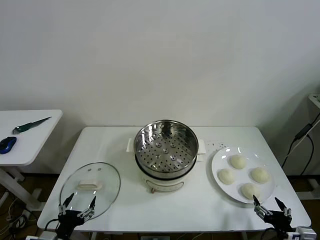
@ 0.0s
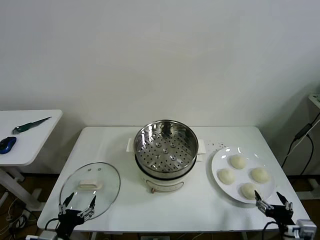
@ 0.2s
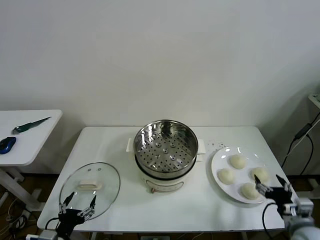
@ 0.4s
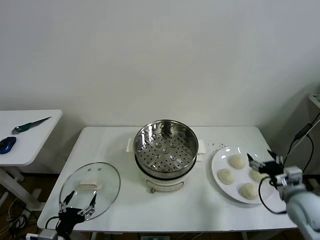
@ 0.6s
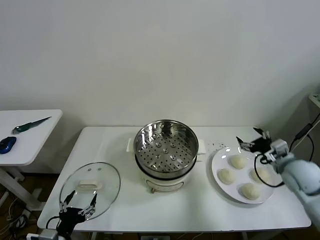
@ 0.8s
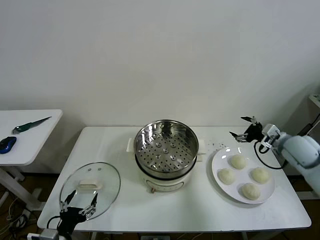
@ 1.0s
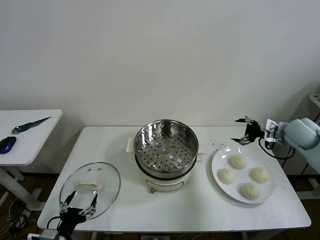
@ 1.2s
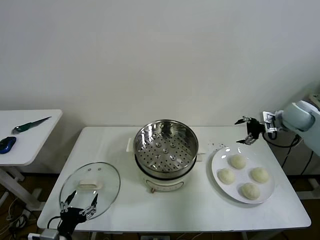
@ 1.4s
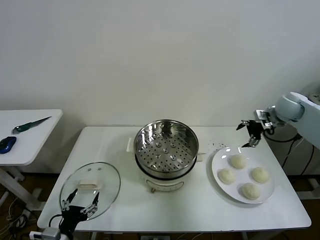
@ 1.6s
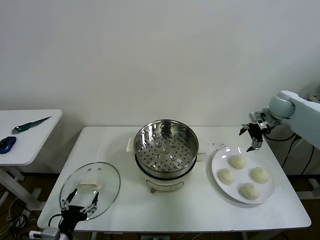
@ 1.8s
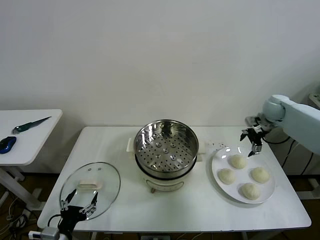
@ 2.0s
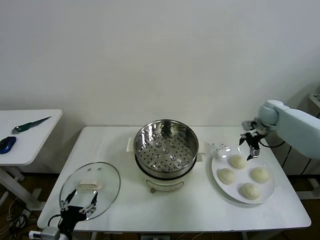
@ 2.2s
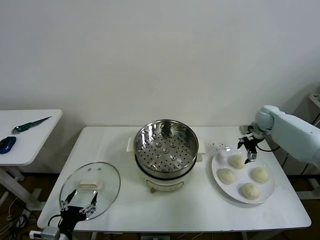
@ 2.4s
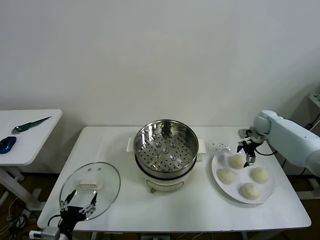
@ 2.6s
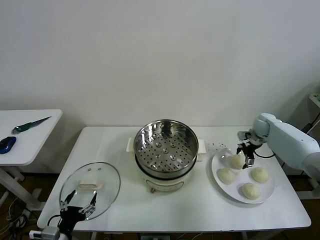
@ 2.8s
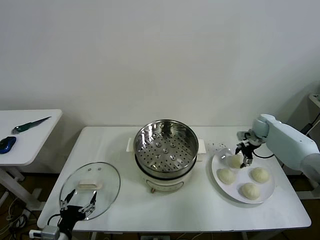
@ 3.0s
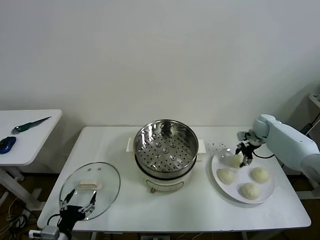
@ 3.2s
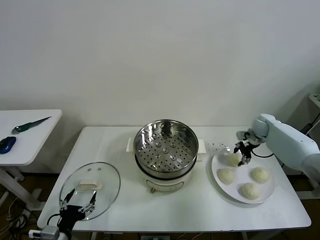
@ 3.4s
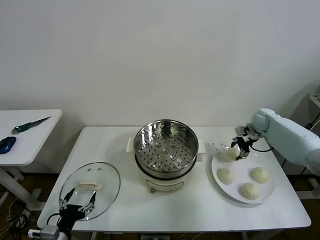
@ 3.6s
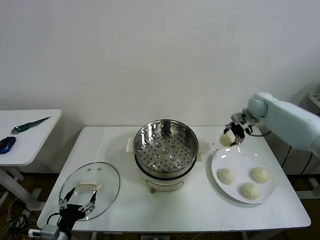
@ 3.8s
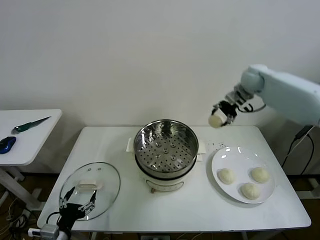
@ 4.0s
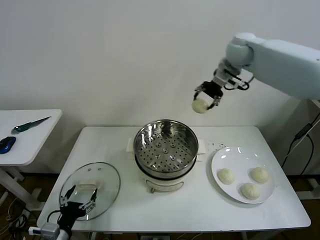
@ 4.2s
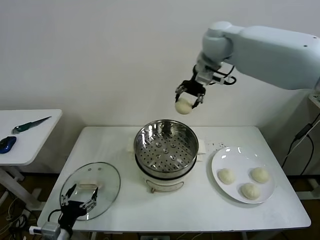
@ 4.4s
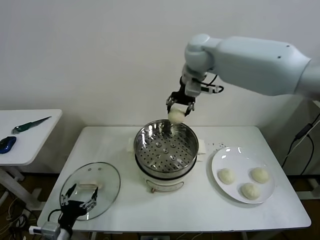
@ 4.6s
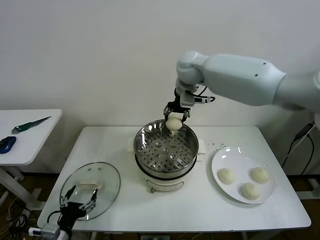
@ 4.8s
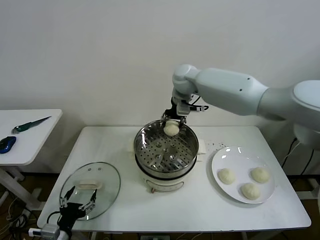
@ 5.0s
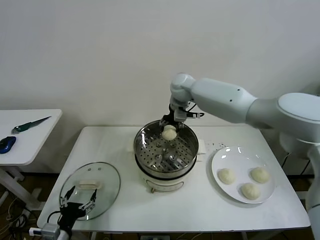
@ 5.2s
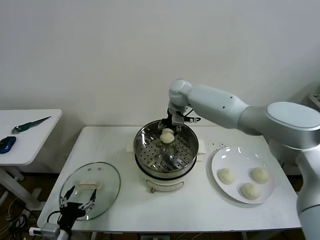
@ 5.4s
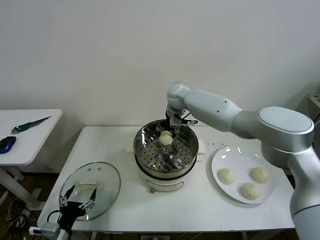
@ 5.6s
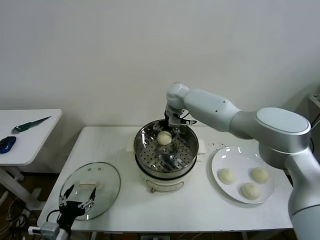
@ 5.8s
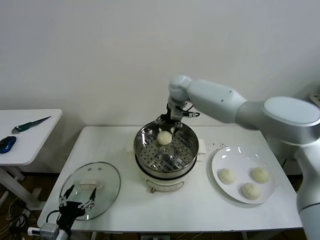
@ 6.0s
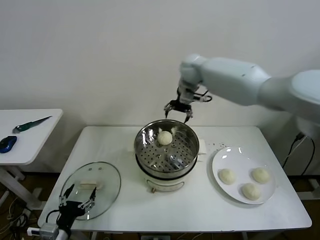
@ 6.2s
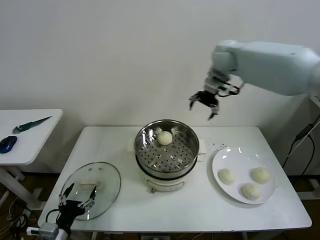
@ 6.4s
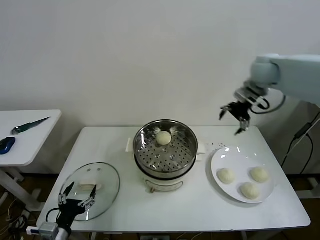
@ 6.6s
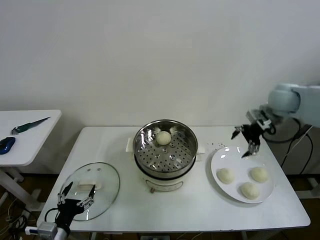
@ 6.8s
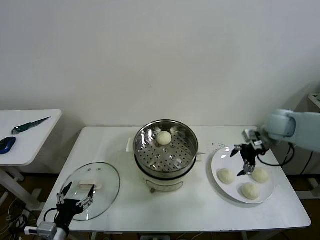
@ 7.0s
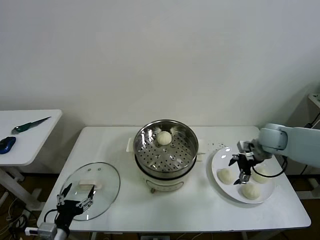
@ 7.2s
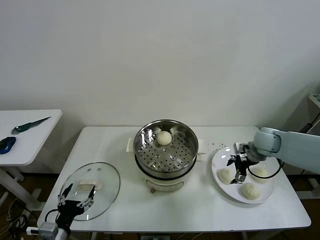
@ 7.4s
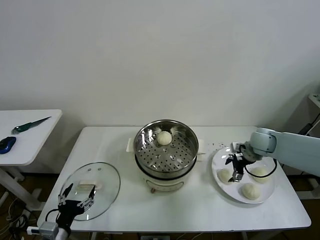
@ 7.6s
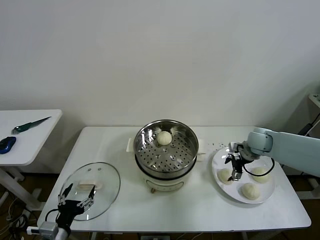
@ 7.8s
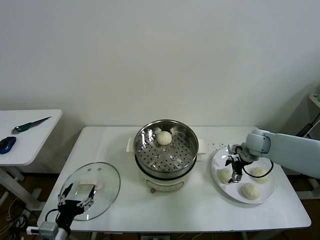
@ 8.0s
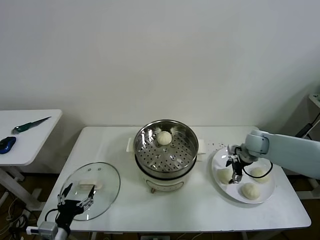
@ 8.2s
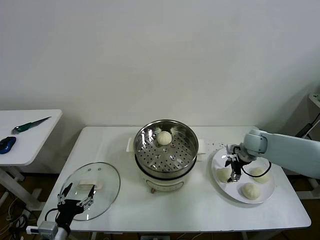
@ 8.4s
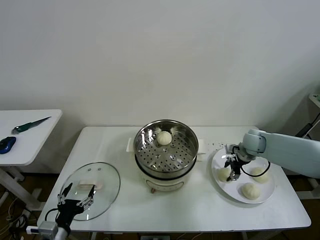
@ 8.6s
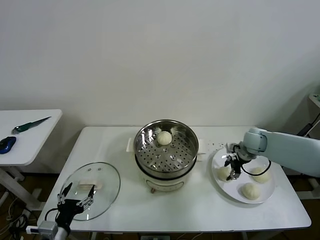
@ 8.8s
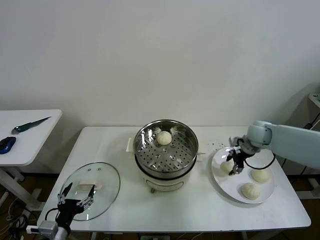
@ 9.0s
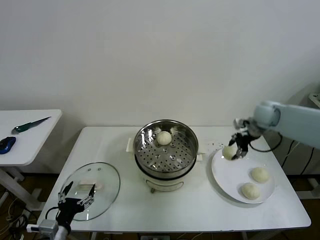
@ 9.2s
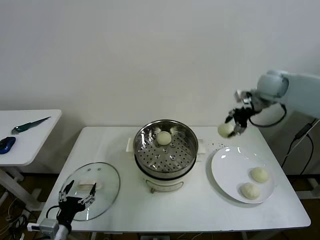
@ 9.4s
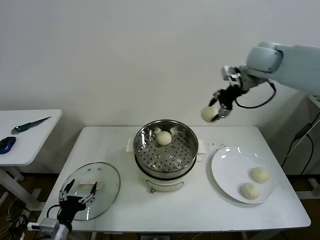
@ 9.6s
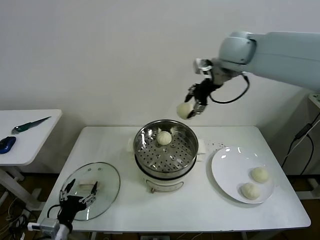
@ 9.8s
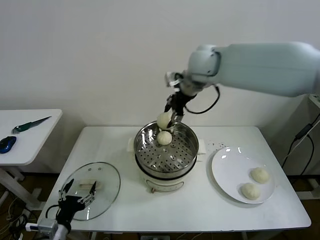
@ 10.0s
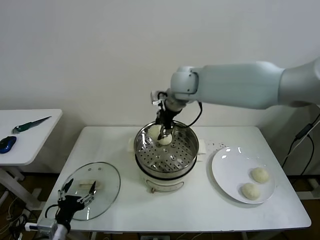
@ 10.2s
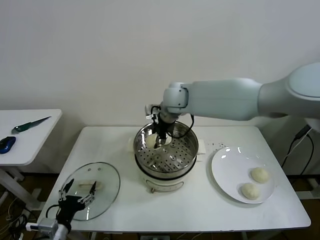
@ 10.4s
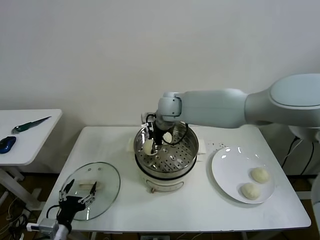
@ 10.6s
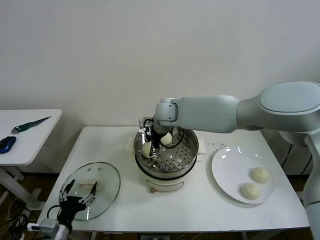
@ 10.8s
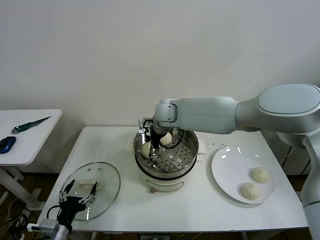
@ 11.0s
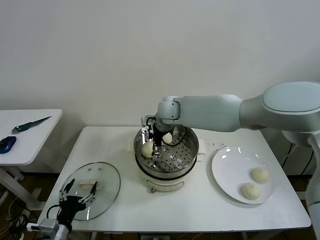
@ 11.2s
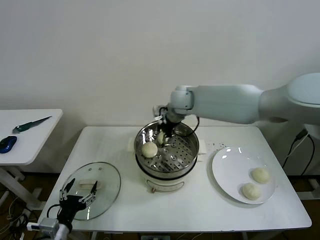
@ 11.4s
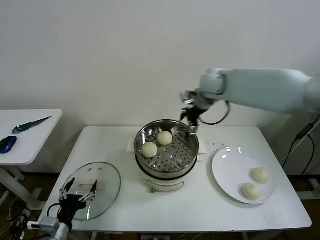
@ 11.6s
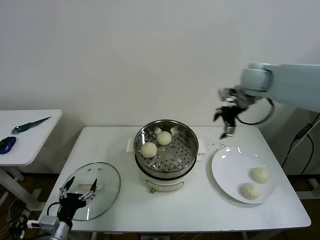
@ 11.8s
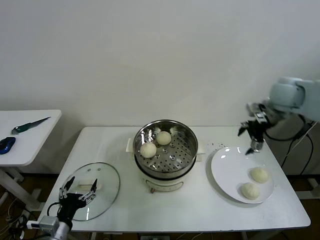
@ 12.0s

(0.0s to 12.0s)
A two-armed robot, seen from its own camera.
Task of the whole recording: take steamed baozi put them in steamer then cover it.
Step, 0.0s - 3.2s: Grasp the baozi in the plate with right gripper.
Step, 3.4s - 5.8s: Place the baozi on the steamer with right gripper.
Step, 6.0s - 8.6s: Grasp the baozi in the plate with right gripper.
Step, 8.8s - 11.0s: Place the baozi on the steamer with right gripper.
1.6s - 3.0s: The right gripper moves downward, roughly 15 cm, and closes up.
3.0s - 4.4s: The right gripper goes approximately 50 cm upward and to the left.
4.4s - 6.0s: The right gripper travels downward and forward by approximately 15 cm, and opens its fingers.
6.0s - 7.6s: The right gripper travels to the right, downward and backward by approximately 35 cm.
7.6s - 9.0s: The right gripper shifts by about 5 cm, and closes.
9.0s - 10.4s: The right gripper shifts some 35 cm to the left.
10.4s - 12.0s: The right gripper travels to the right by about 35 cm, and opens its fingers.

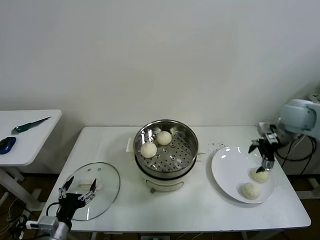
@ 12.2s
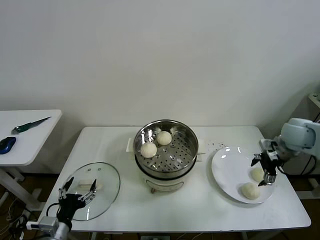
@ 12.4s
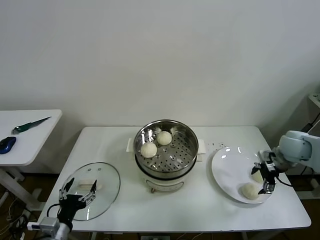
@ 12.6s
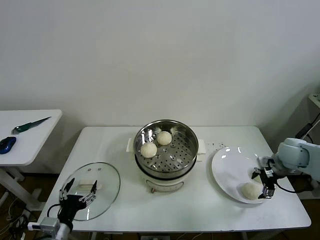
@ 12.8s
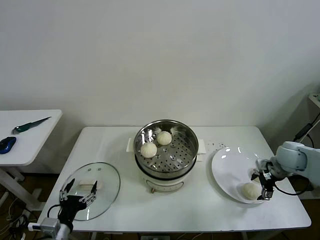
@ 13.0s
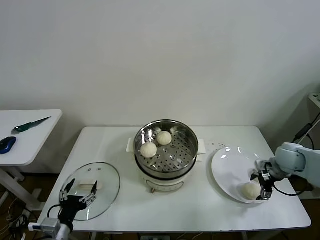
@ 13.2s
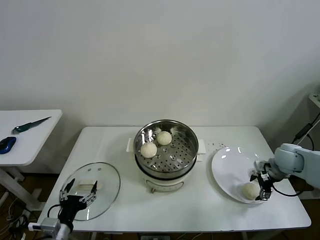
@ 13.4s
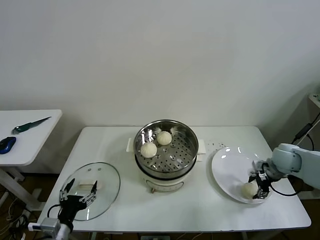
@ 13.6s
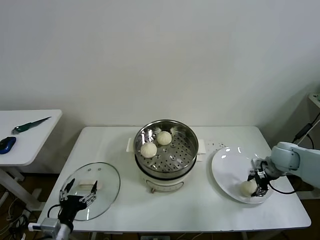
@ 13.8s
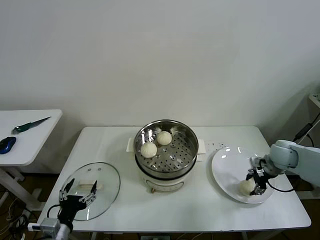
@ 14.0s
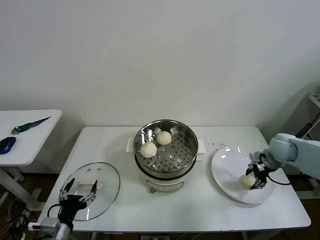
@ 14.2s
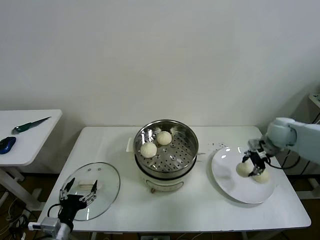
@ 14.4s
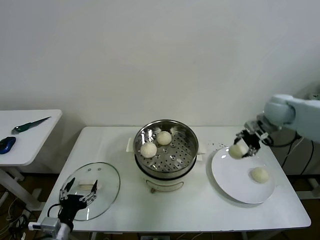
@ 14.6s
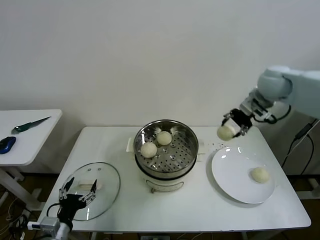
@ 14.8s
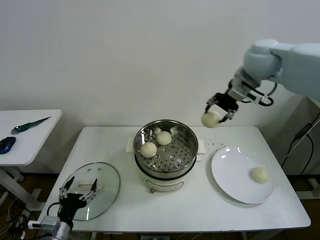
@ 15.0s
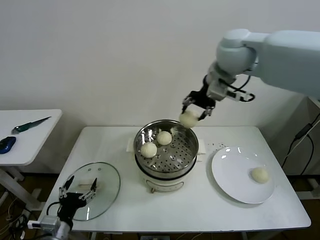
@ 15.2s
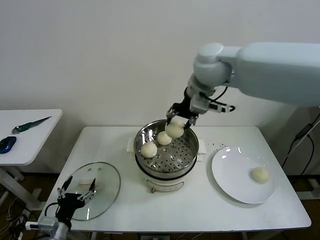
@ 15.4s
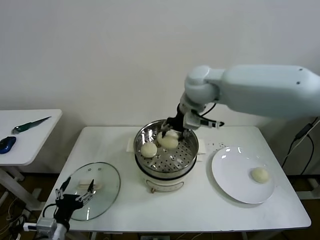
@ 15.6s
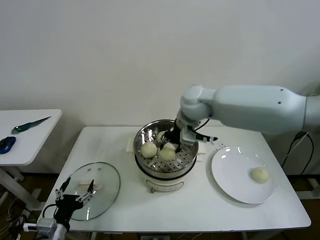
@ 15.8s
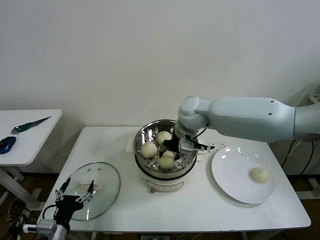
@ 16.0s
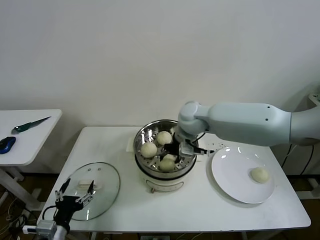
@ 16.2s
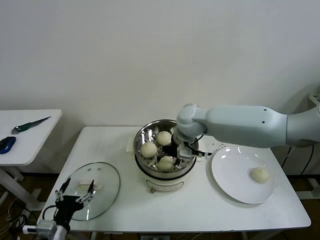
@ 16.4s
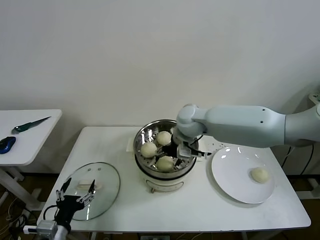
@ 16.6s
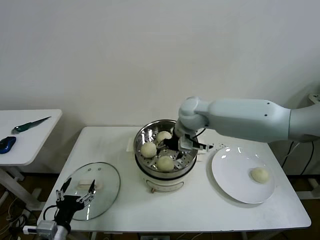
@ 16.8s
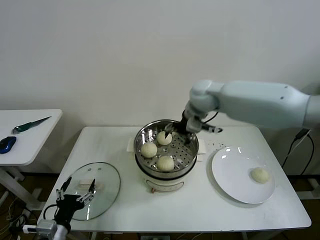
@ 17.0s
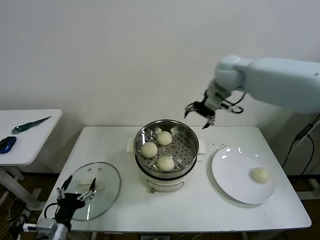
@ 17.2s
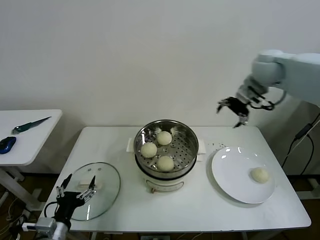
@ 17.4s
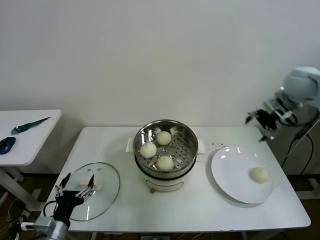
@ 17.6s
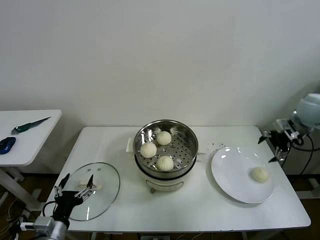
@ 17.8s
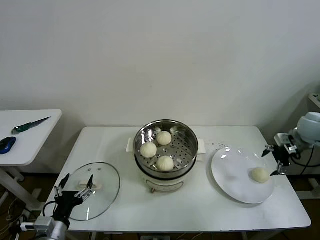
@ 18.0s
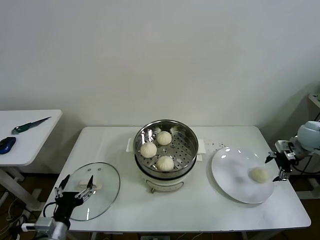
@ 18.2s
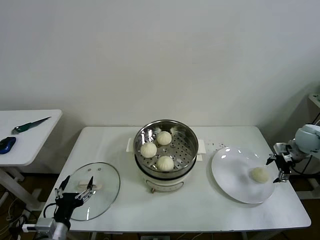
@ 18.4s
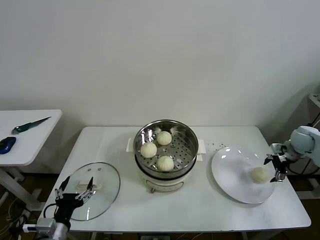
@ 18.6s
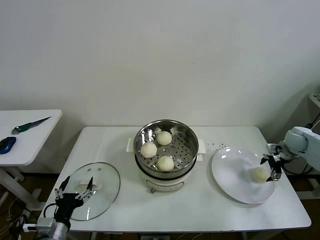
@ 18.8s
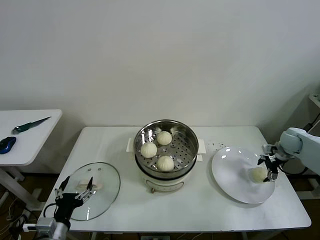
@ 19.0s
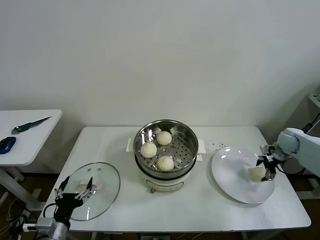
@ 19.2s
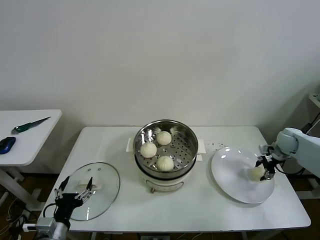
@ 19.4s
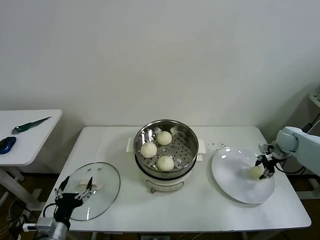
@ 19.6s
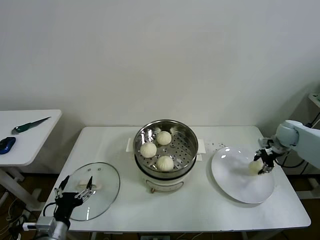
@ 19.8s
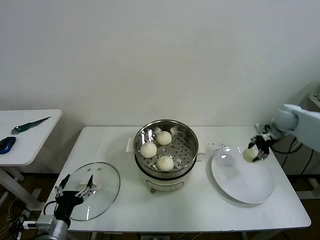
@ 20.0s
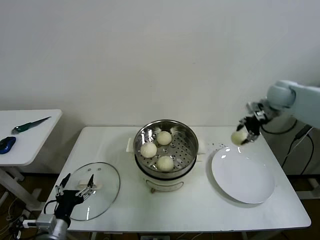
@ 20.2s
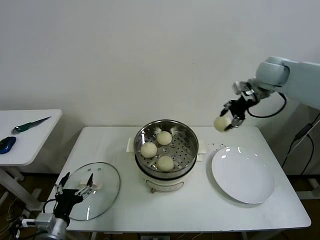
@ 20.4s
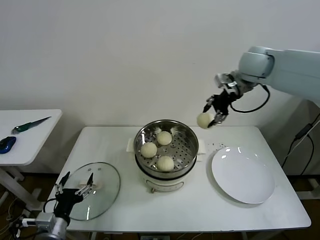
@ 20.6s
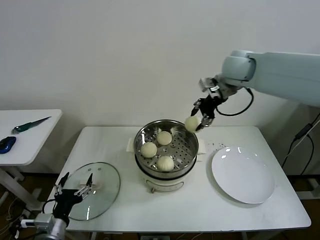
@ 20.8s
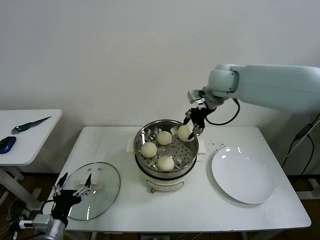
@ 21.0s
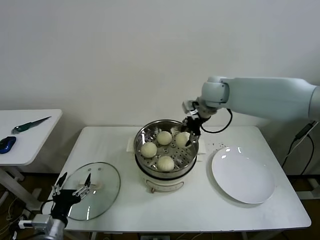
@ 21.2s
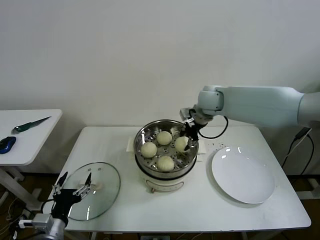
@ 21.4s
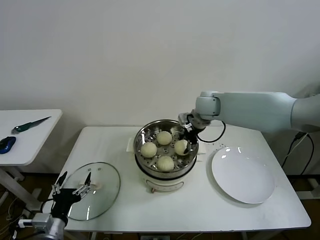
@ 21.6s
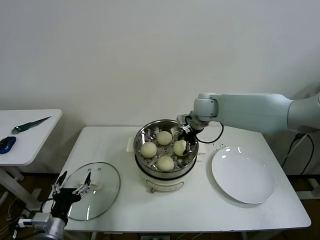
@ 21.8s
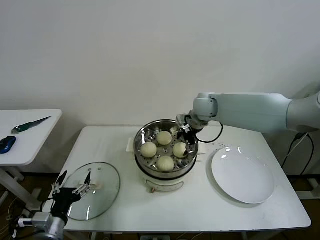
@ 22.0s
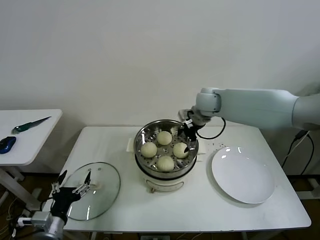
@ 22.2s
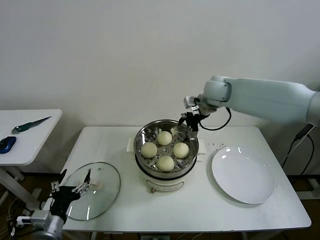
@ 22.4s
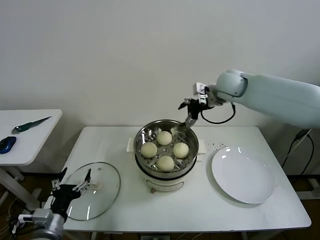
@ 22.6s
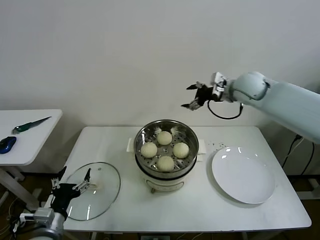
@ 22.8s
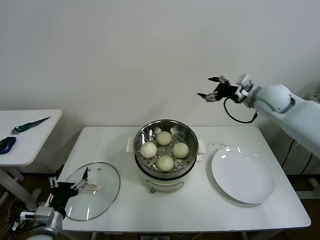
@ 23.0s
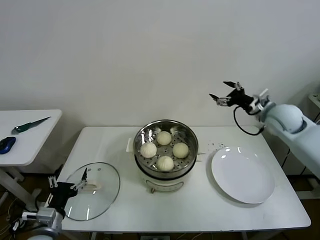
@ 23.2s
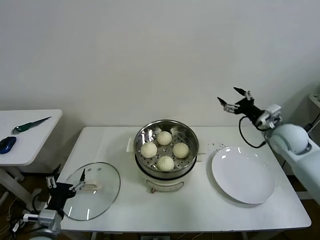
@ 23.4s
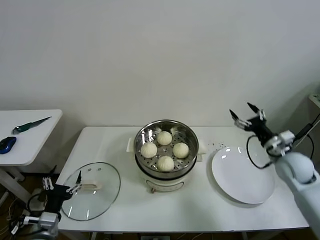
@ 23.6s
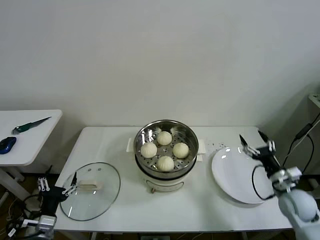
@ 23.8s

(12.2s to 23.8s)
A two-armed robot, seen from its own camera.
Task of the whole recording: take steamed baozi put them in steamer then cover it.
Step, 12.2s - 13.8s: Grasp the baozi in the plate with right gripper.
Step, 14.0s - 16.6s: Place the baozi on the steamer with right gripper.
Step, 16.8s - 19.4s: Grasp the baozi in the plate with right gripper.
Step, 19.8s - 21.8s: Place the baozi on the steamer with right gripper.
12.2s - 13.6s: The right gripper moves downward, approximately 15 cm, and closes.
13.6s - 15.0s: The right gripper moves upward and to the left, about 40 cm.
15.0s - 16.6s: The right gripper shifts some 25 cm downward and to the left, and opens its fingers.
16.6s - 18.0s: The right gripper heads to the right, covering roughly 40 cm.
18.0s - 19.4s: The right gripper is displaced downward by roughly 10 cm, and closes up.
19.4s - 21.0s: The right gripper heads to the left and upward, covering some 40 cm.
21.0s - 22.4s: The right gripper travels downward and back again, approximately 10 cm each way, and opens up.
22.4s - 23.8s: The right gripper moves downward, backward and to the right, about 50 cm.
